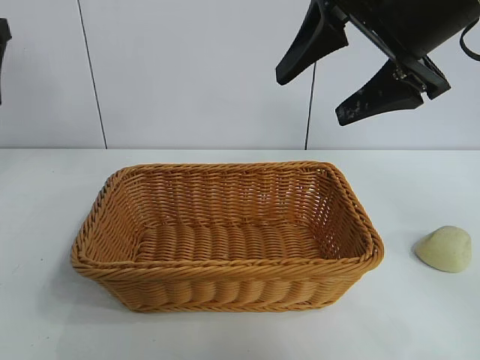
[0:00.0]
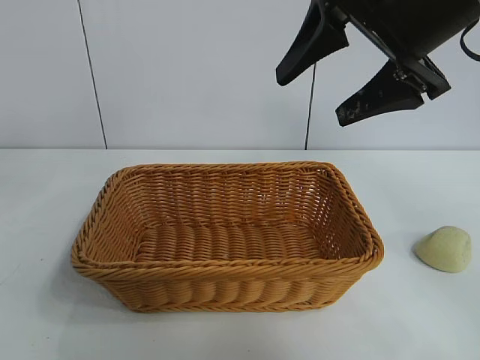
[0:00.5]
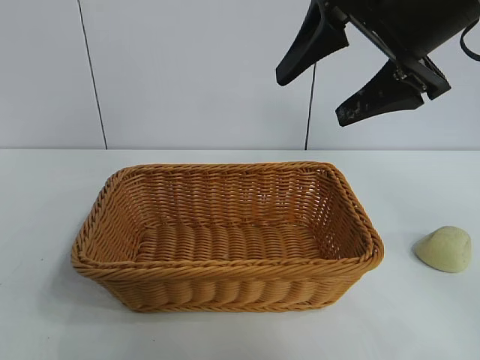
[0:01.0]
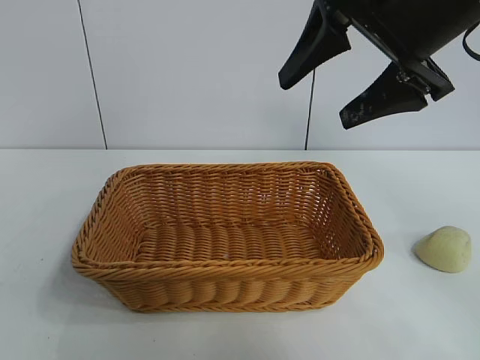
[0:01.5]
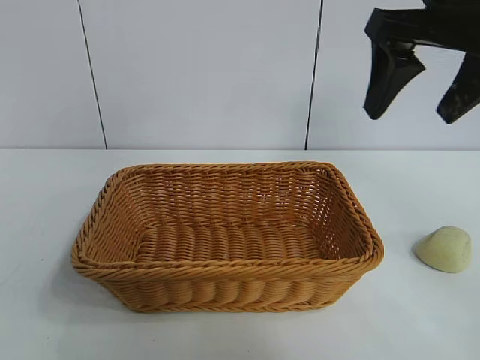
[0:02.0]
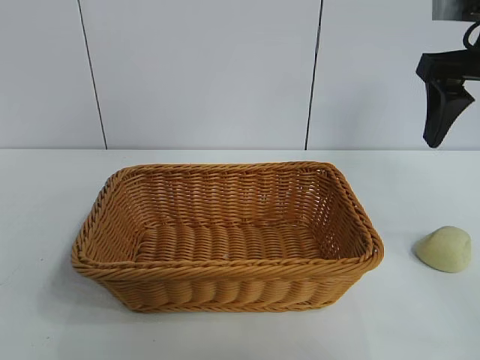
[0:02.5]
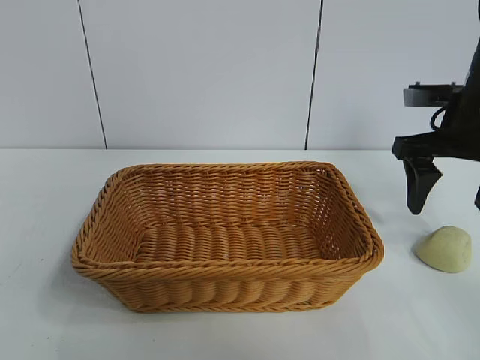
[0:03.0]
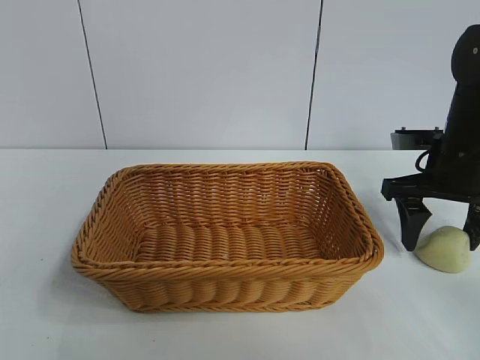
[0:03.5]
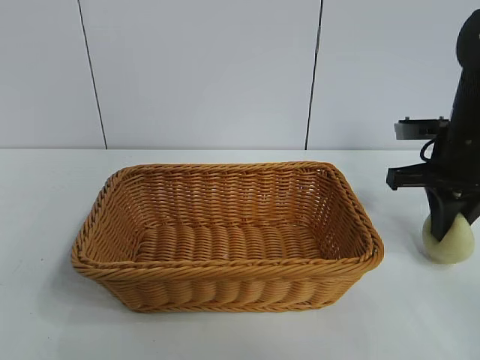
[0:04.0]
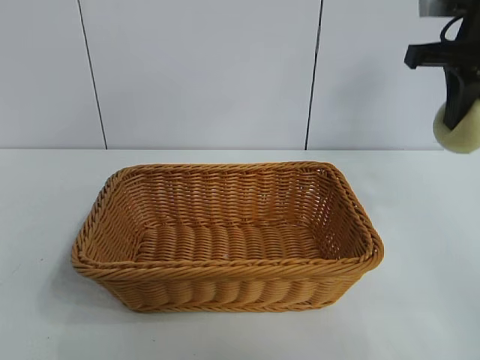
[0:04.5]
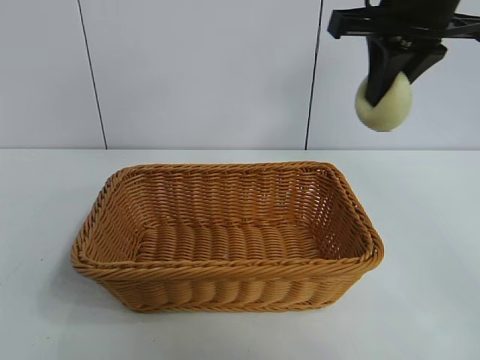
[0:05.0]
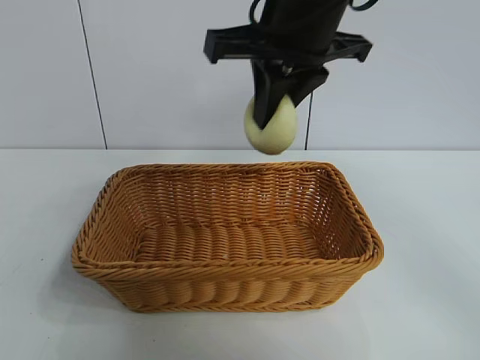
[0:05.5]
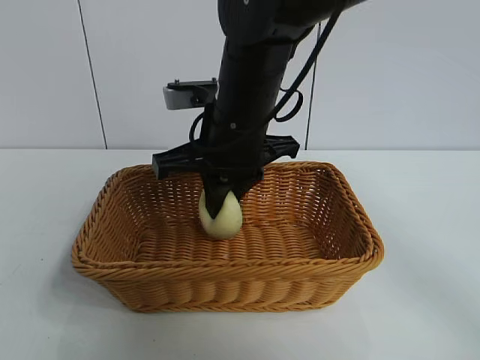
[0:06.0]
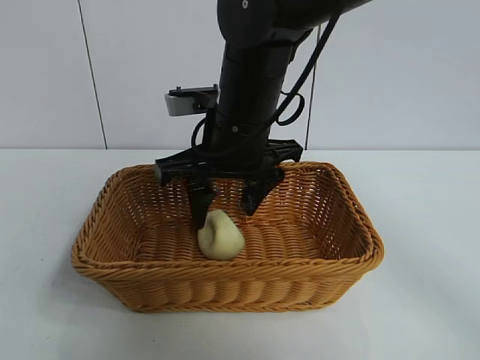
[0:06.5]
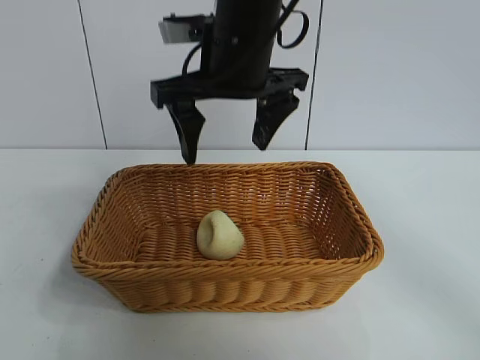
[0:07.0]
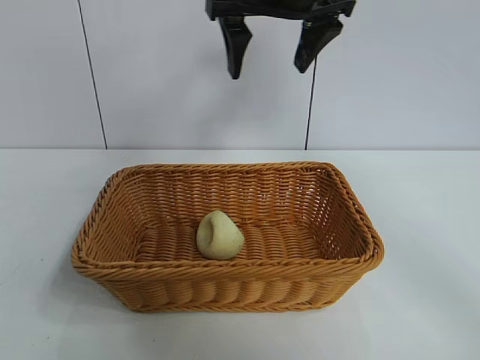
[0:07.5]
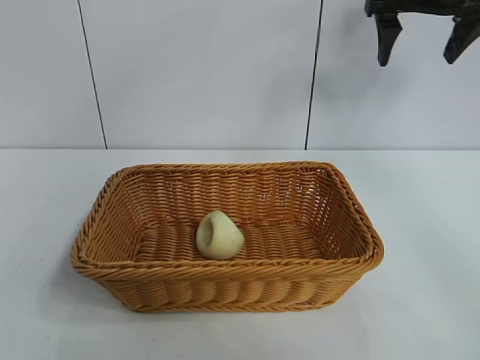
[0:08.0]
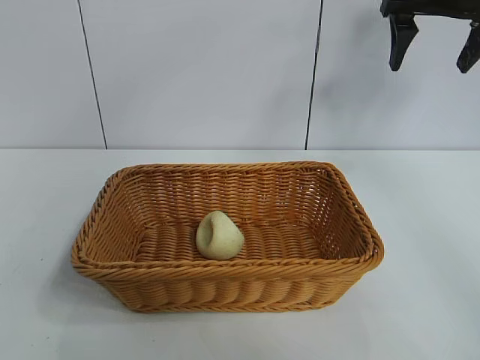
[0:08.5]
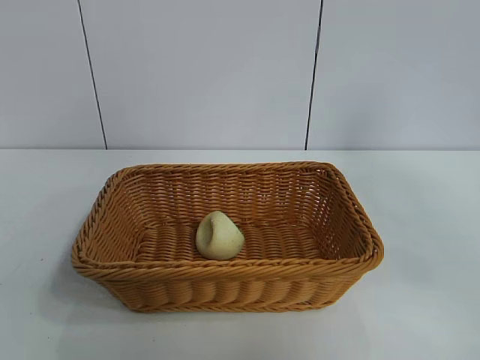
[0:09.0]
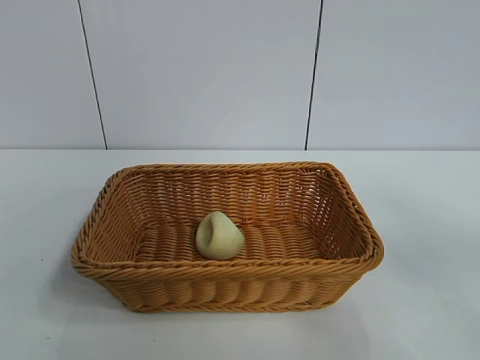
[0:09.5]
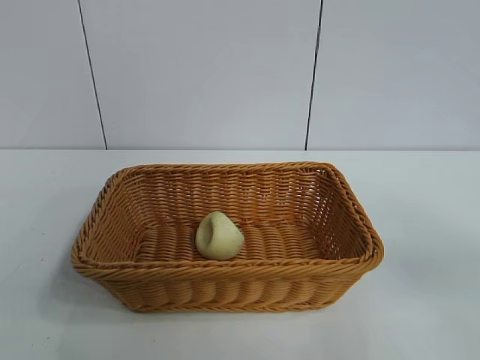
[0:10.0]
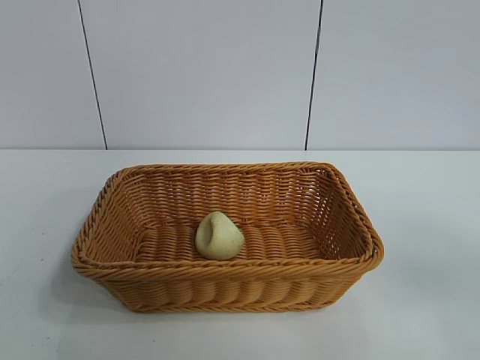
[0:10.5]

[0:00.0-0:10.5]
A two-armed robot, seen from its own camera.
Task of the whole recording: pick up the egg yolk pastry and put it into the basket.
Step, 0:00.0 to 0:03.5: Grasp egg yolk pastry with right gripper.
Step, 0:04.0 to 0:06.5: Place the egg yolk pastry in the basket with right gripper.

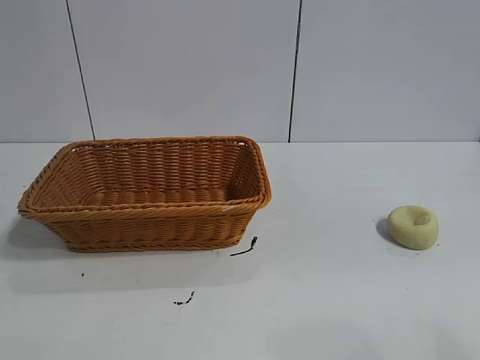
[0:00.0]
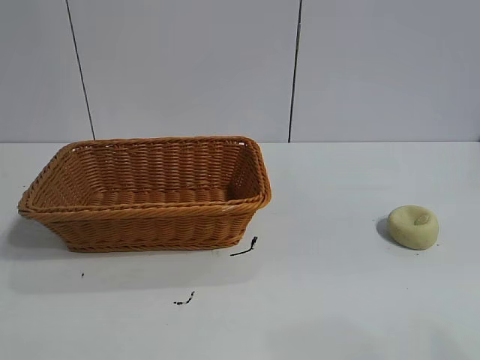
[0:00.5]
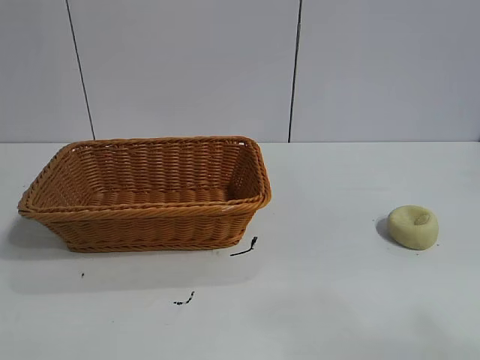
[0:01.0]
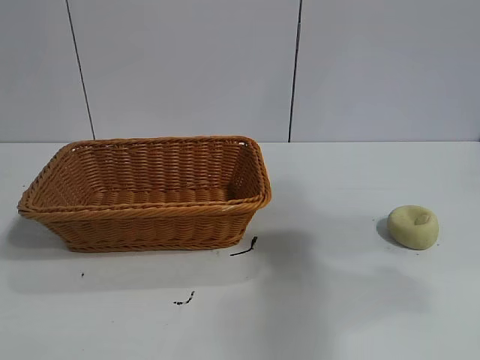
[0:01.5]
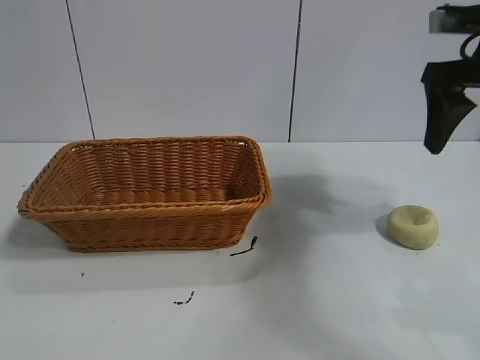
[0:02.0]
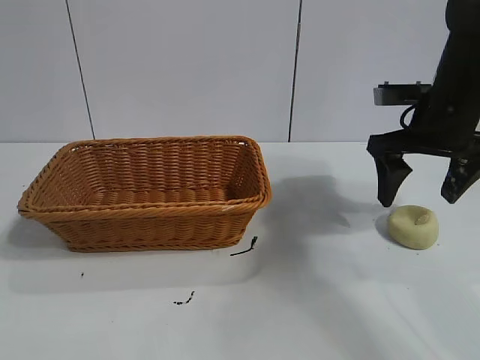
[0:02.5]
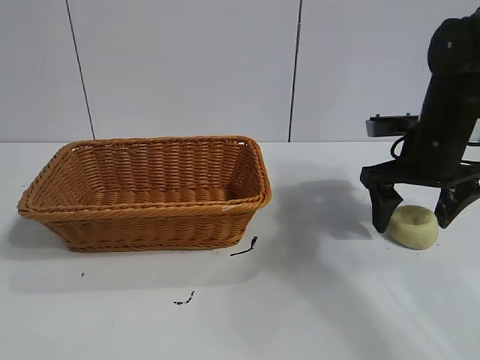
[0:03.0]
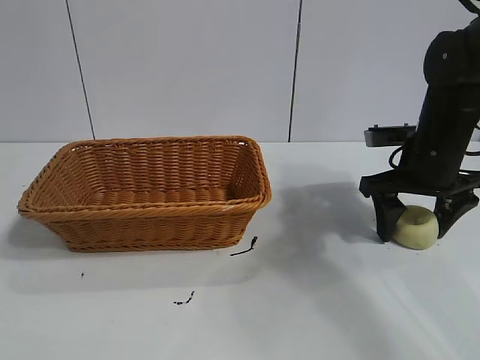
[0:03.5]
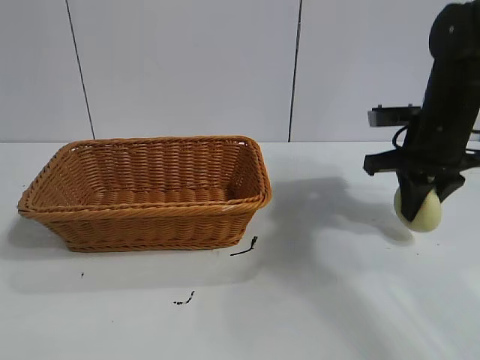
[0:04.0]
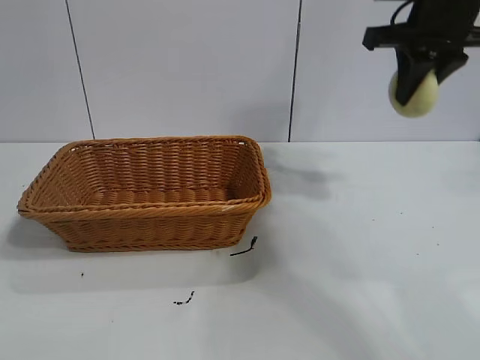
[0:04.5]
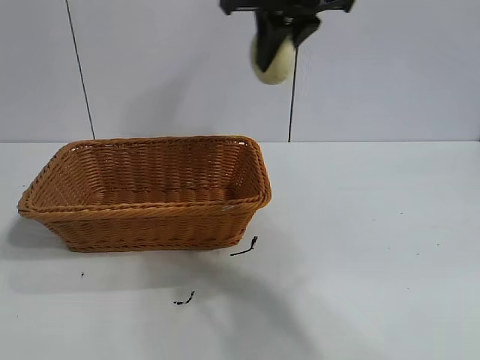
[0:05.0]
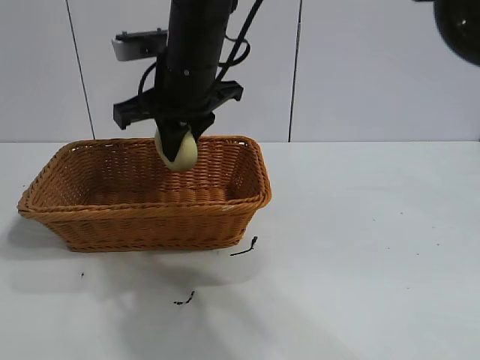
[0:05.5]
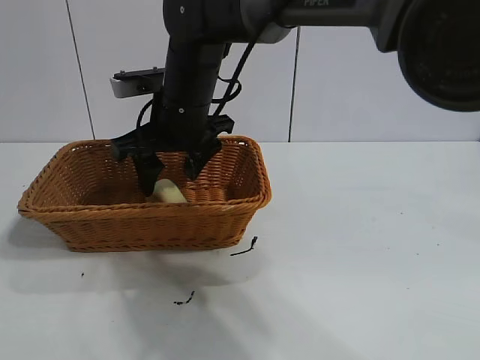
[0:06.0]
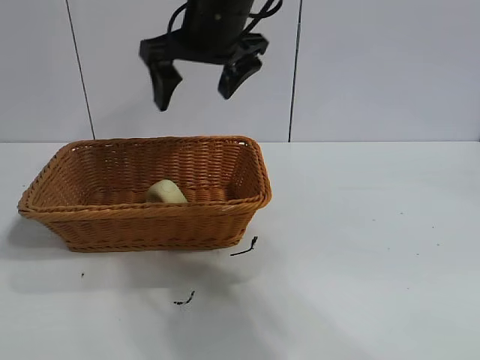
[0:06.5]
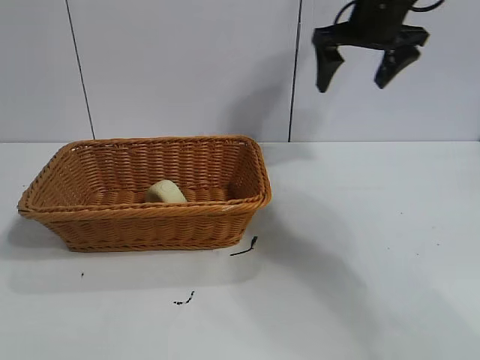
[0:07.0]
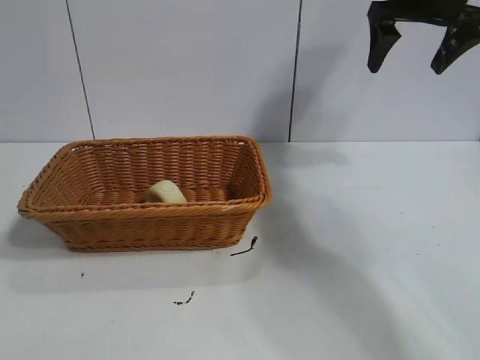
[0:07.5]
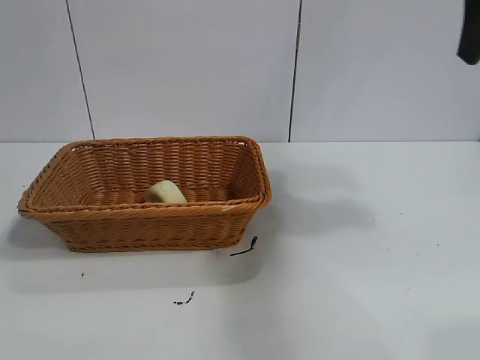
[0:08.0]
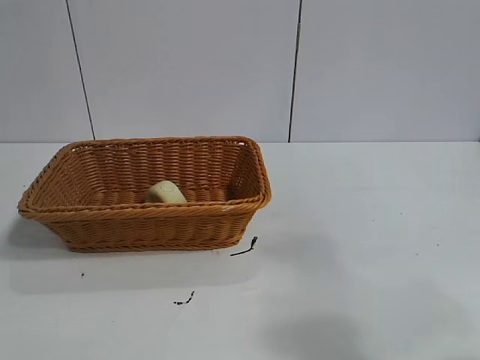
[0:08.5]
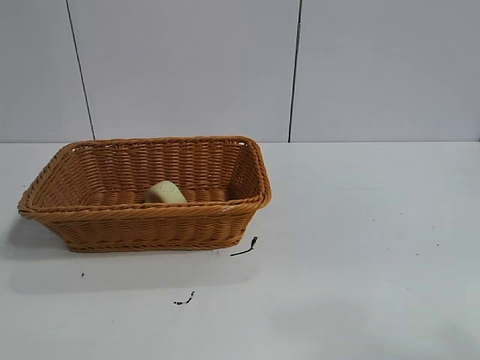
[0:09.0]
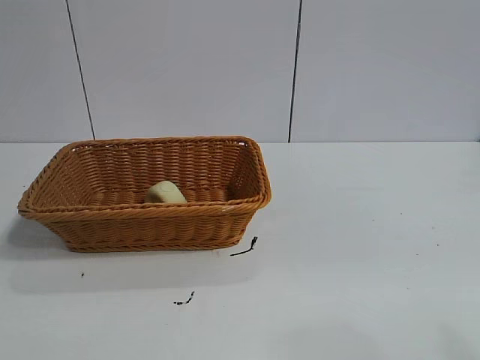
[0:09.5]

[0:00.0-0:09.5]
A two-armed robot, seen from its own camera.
Task of the whole recording: pick up the egg yolk pastry and put it into the basket.
Step, 0:01.0 to 0:03.5: Grasp egg yolk pastry with right gripper.
Step, 0:04.0 to 0:06.0: Place the egg yolk pastry in the basket with right gripper.

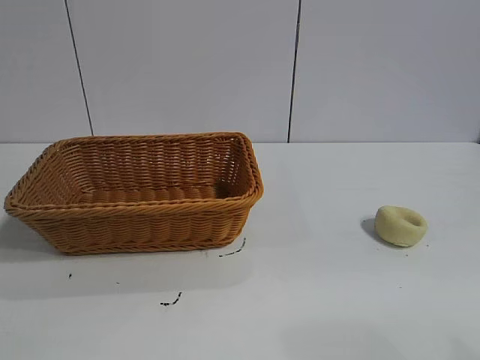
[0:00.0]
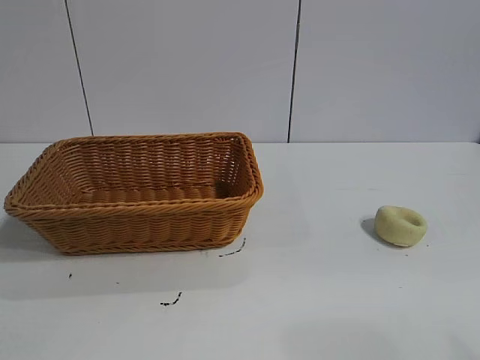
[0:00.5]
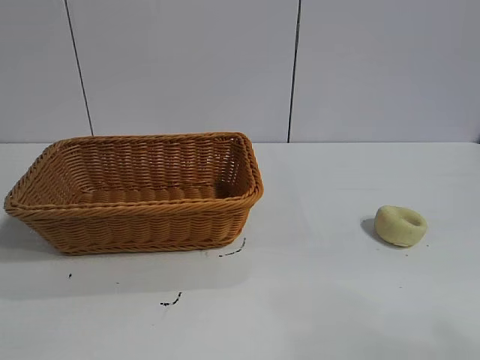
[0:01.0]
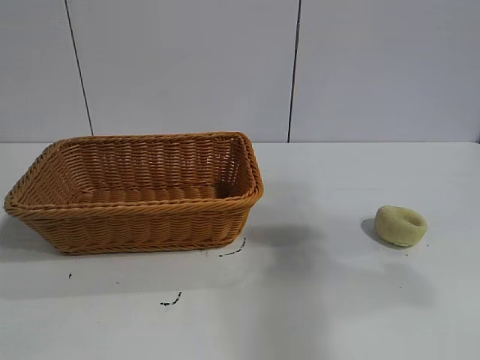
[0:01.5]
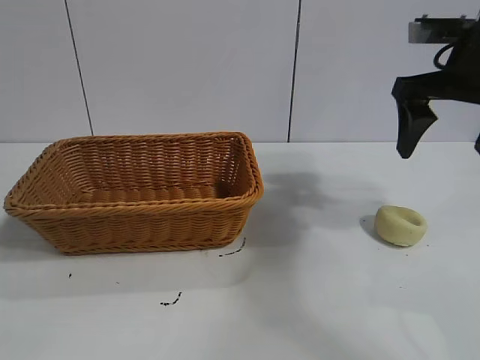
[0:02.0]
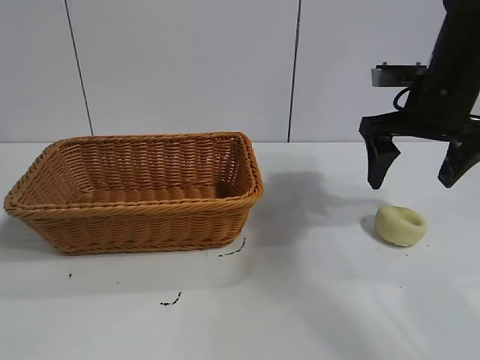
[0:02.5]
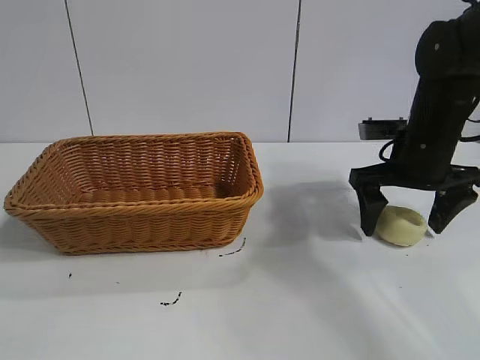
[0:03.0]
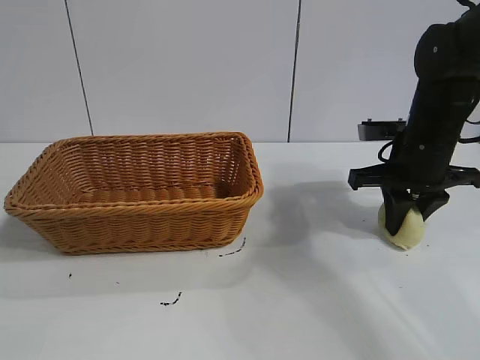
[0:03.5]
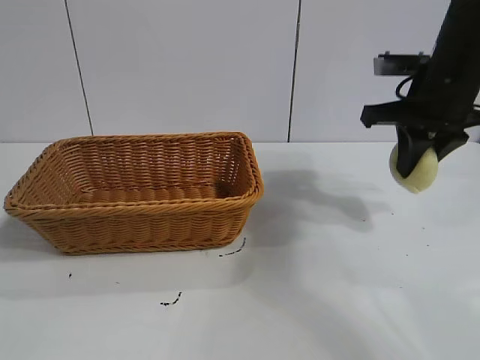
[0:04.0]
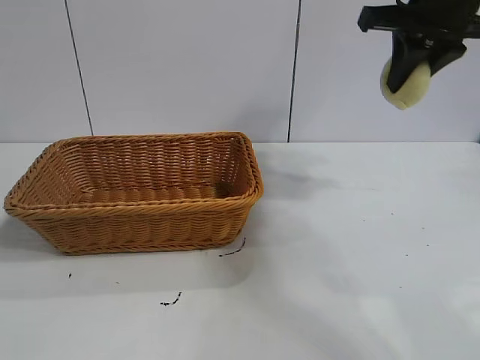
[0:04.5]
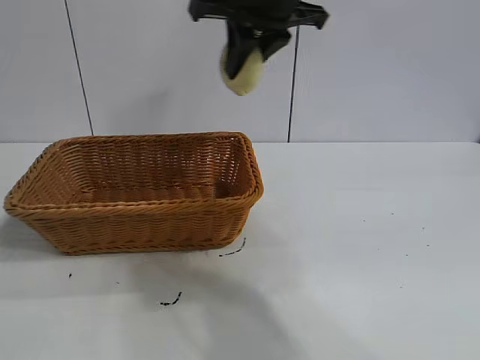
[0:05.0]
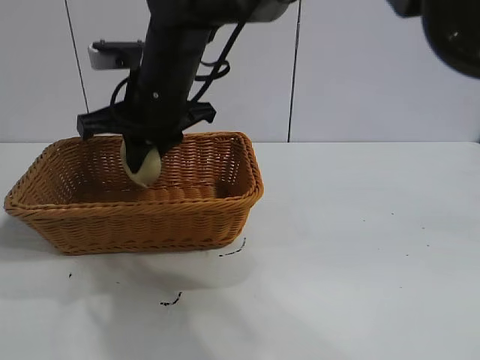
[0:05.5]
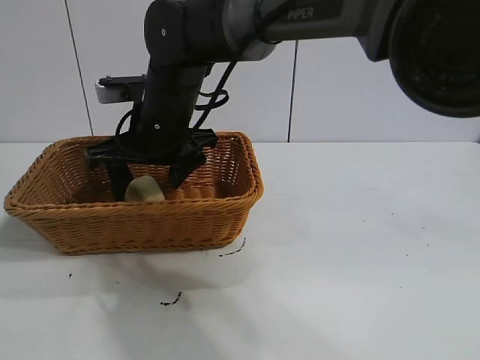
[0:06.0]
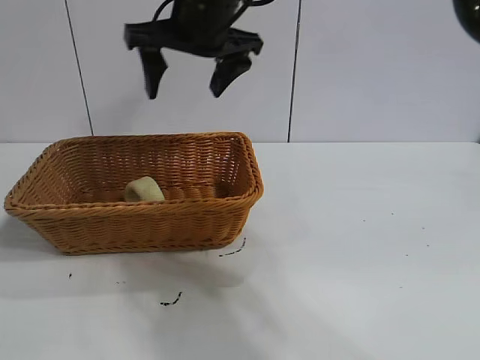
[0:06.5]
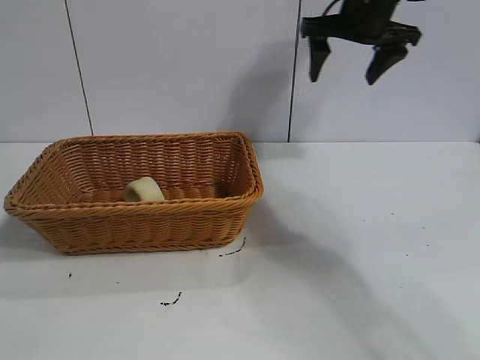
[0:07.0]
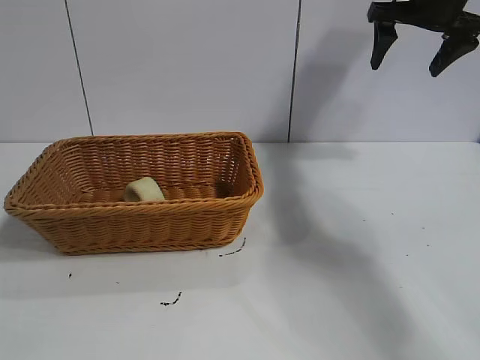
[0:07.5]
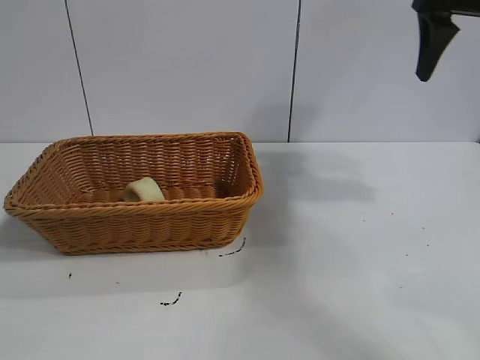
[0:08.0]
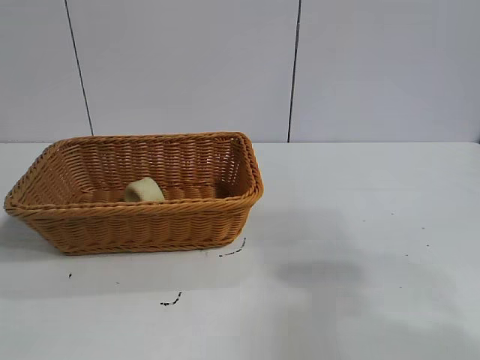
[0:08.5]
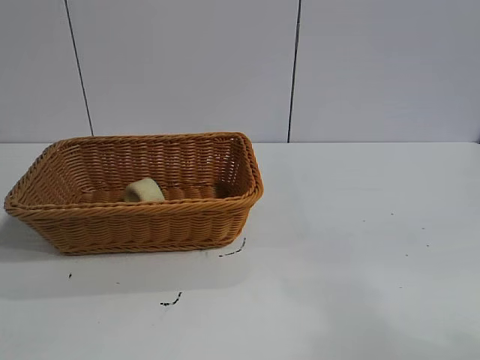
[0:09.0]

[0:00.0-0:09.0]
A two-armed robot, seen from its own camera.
Task of the whole recording: pick up the egg yolk pastry and put it into the basket.
Step, 0:01.0 to 0:03.5: Grasp egg yolk pastry with right gripper.
Step, 0:04.0 to 0:06.0: Place the egg yolk pastry in the basket with right gripper.